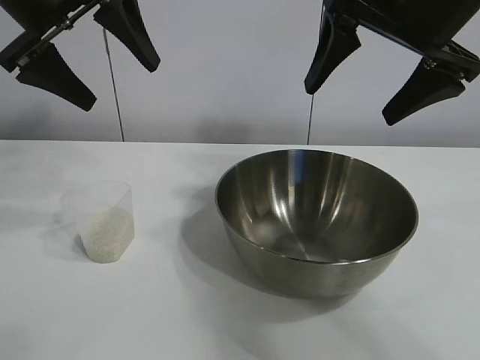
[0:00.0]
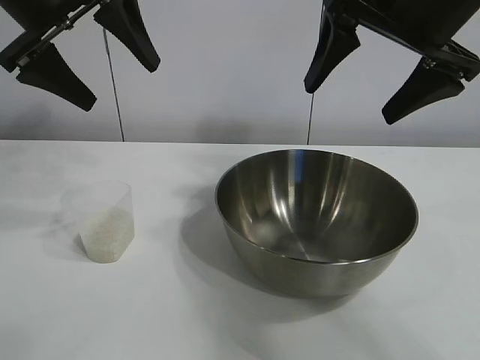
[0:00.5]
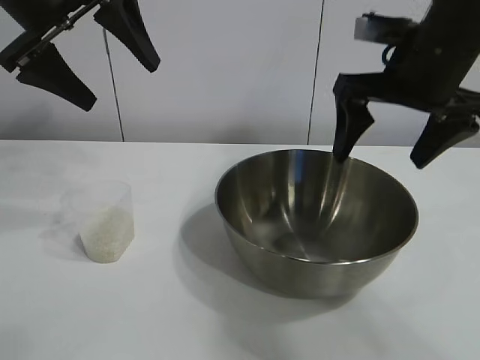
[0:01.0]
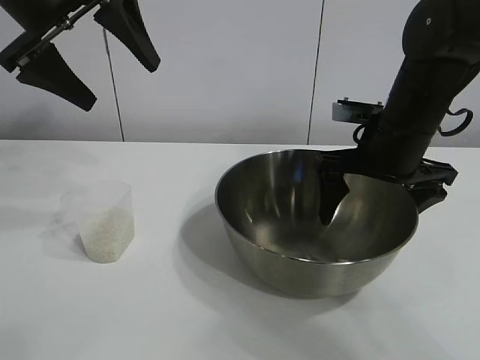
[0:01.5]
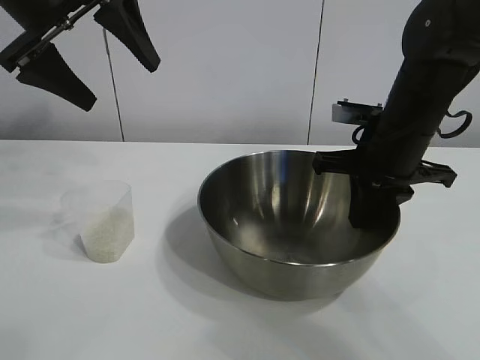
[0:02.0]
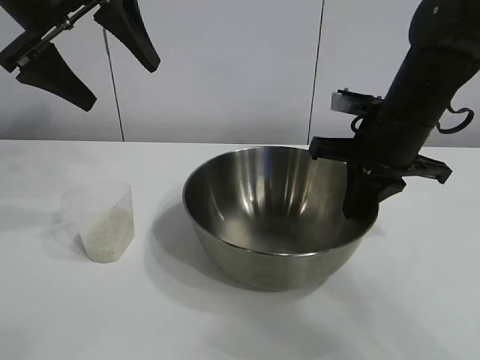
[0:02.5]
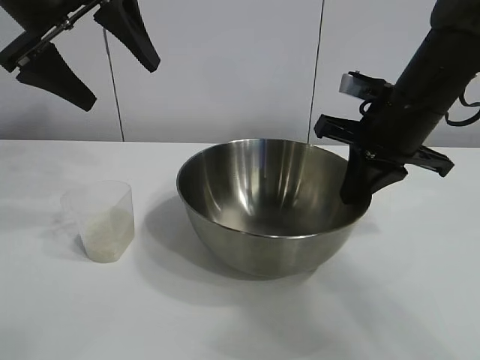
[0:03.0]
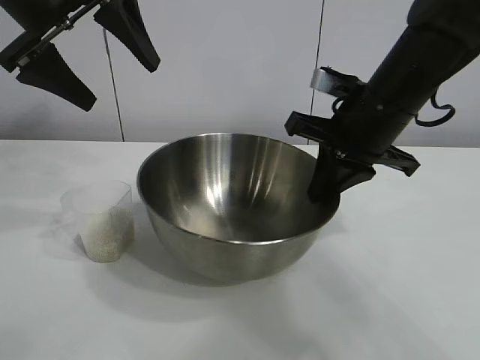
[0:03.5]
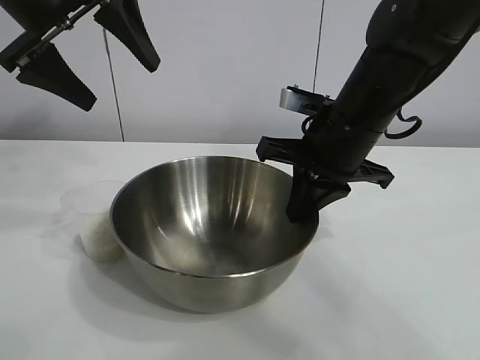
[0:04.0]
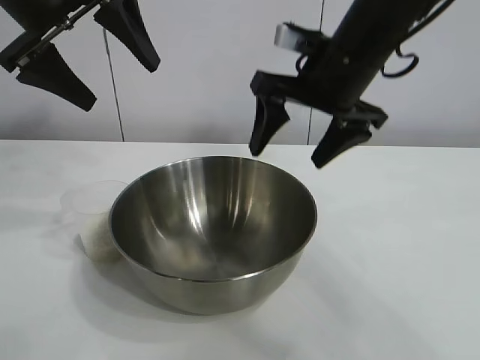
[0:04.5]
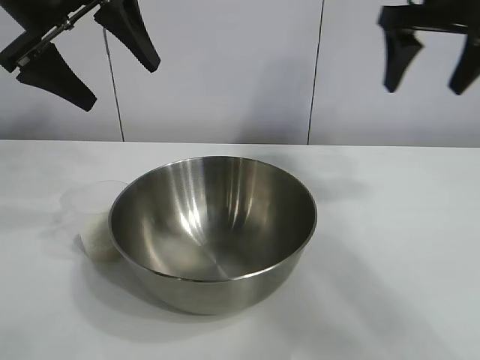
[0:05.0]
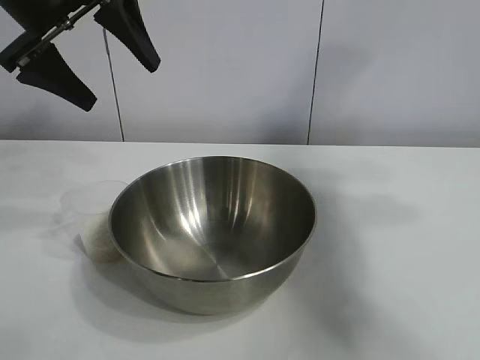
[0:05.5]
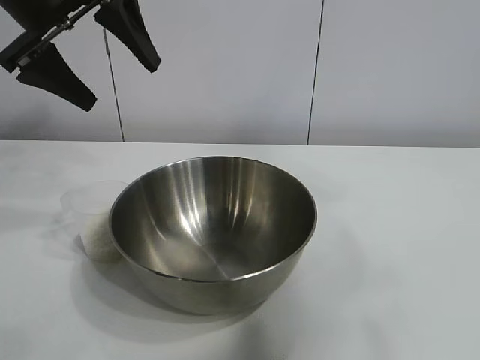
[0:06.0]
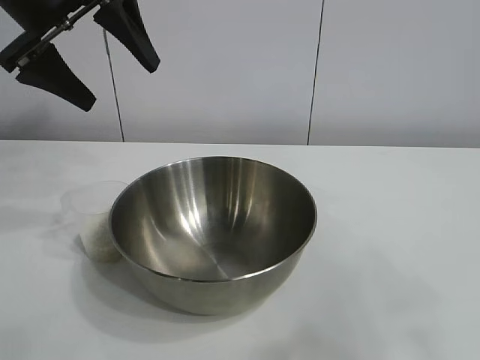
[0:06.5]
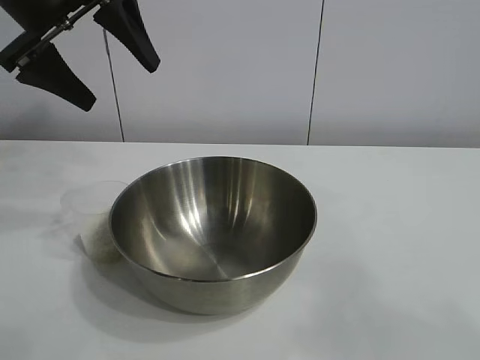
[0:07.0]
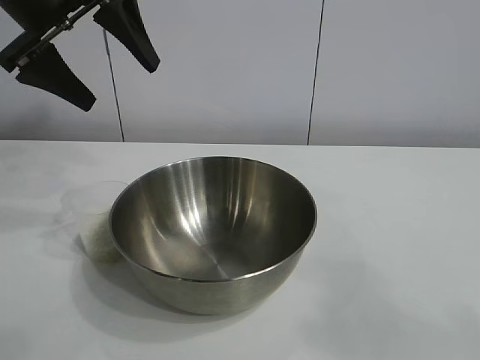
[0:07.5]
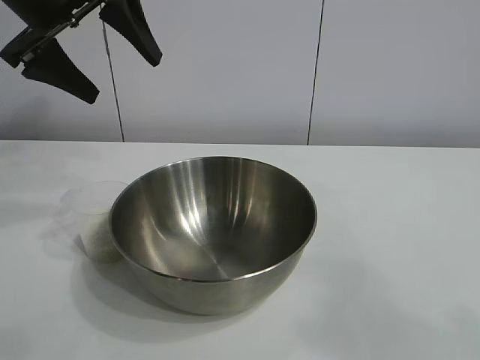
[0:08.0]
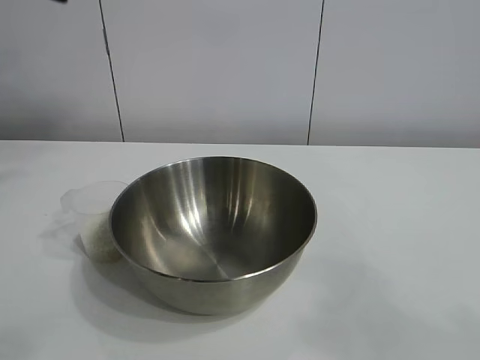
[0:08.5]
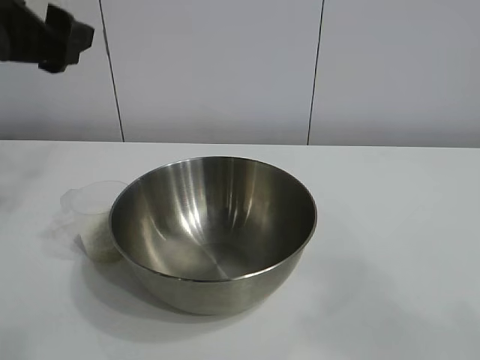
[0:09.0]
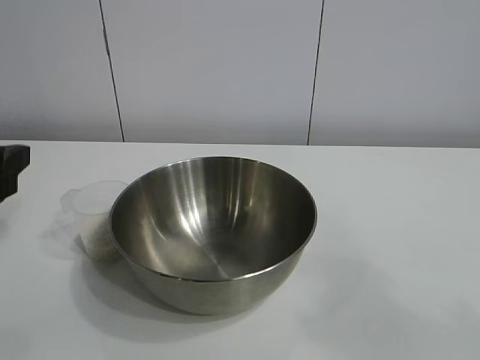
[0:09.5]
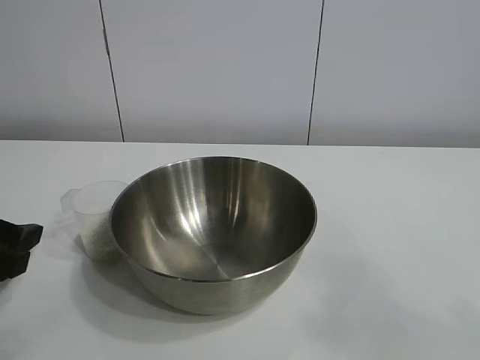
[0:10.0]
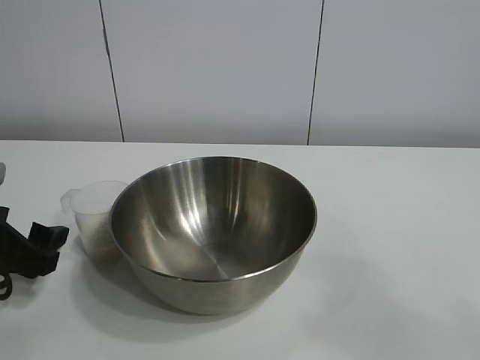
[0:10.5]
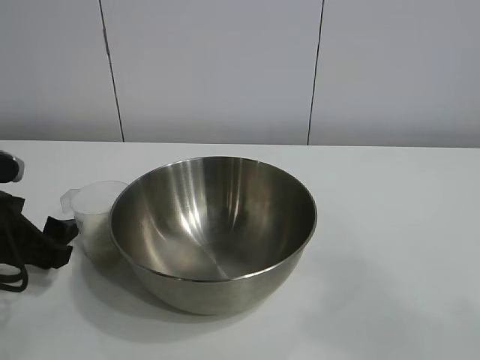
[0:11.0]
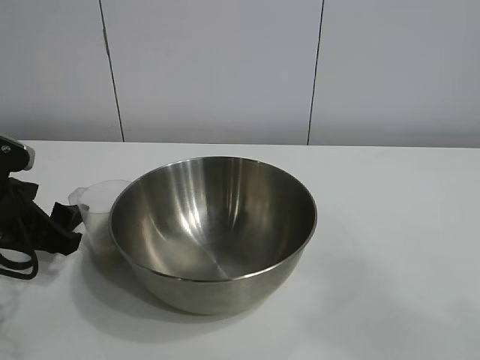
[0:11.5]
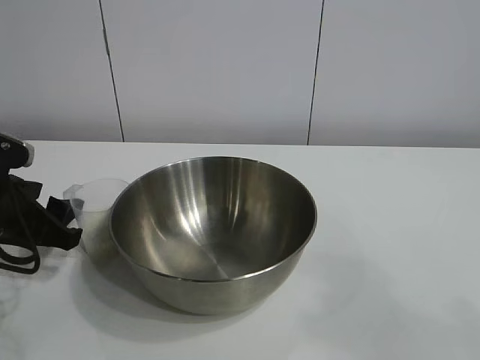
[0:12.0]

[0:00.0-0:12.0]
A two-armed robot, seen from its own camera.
Task of the whole recording: the right gripper grasp the rice container and place it in the center of the table, the left gripper grasp the rice scoop and pour the rice into the rice container.
Step, 0:01.0 to 0:04.0: Move the bowl in the center of view with right gripper.

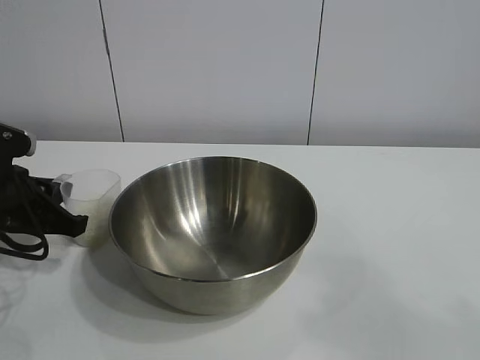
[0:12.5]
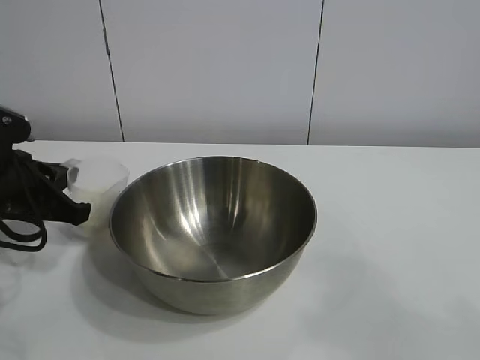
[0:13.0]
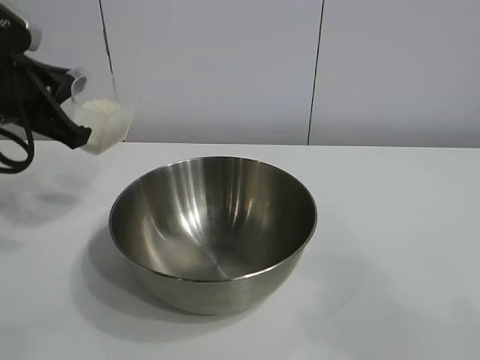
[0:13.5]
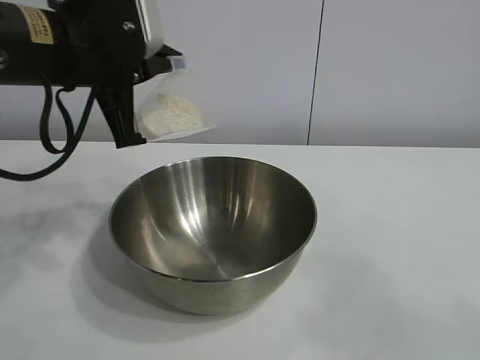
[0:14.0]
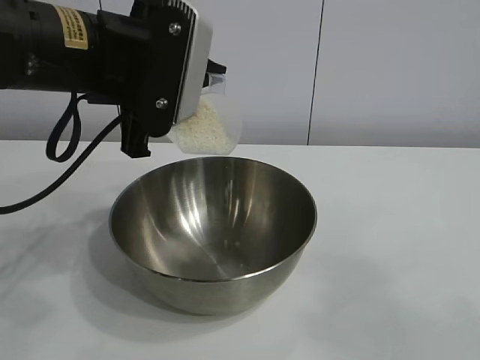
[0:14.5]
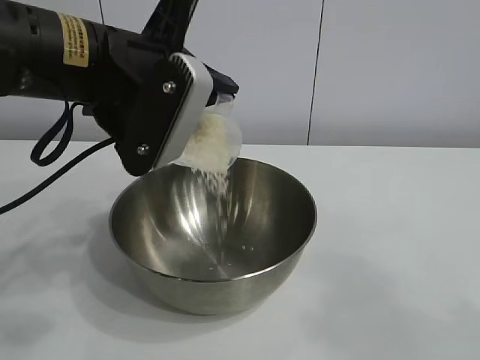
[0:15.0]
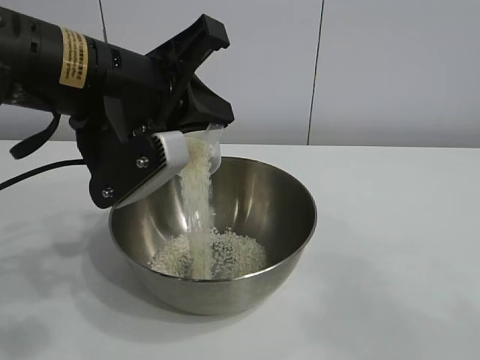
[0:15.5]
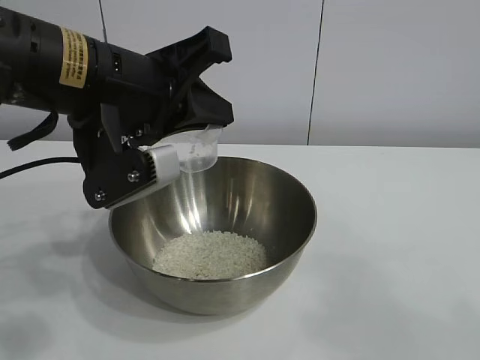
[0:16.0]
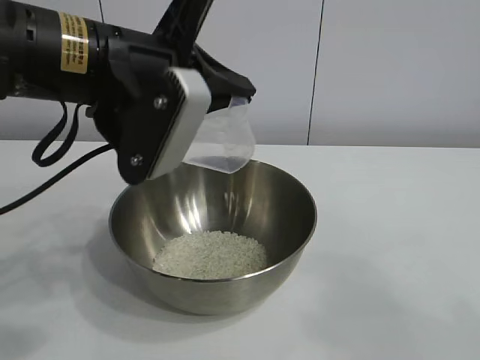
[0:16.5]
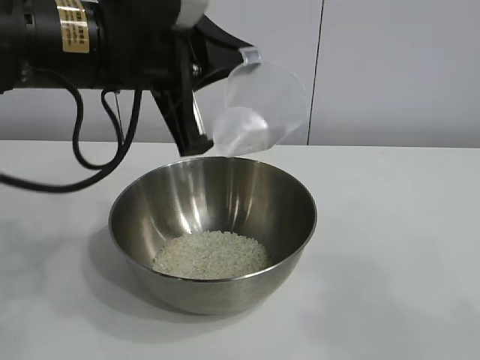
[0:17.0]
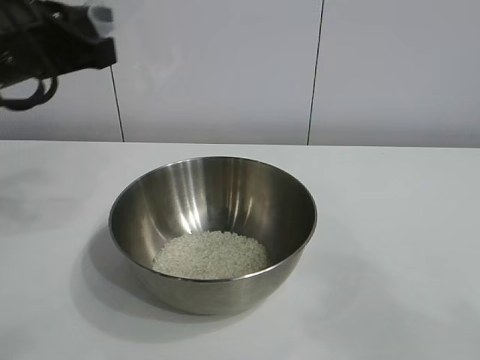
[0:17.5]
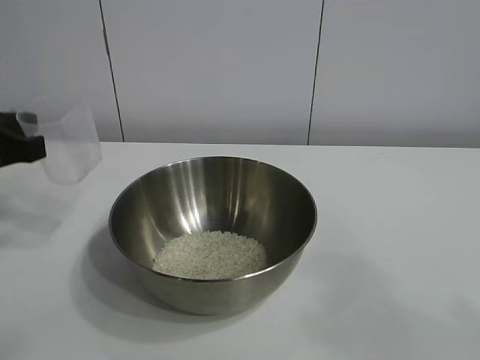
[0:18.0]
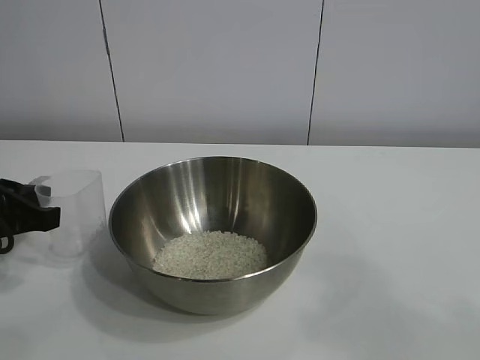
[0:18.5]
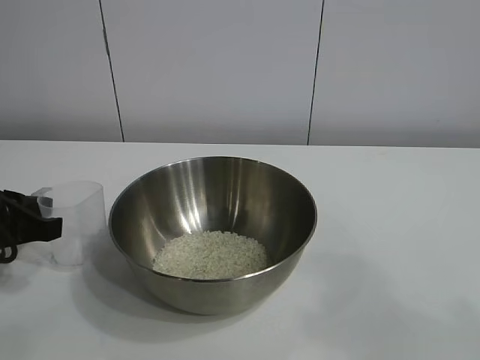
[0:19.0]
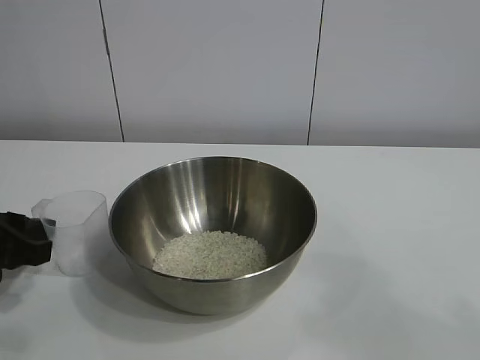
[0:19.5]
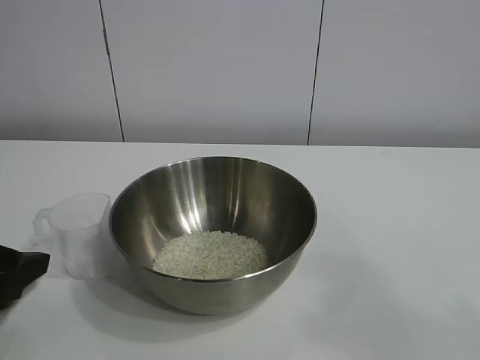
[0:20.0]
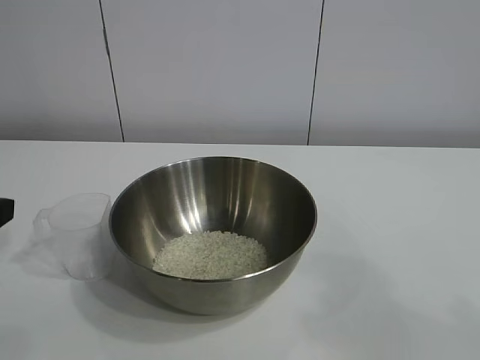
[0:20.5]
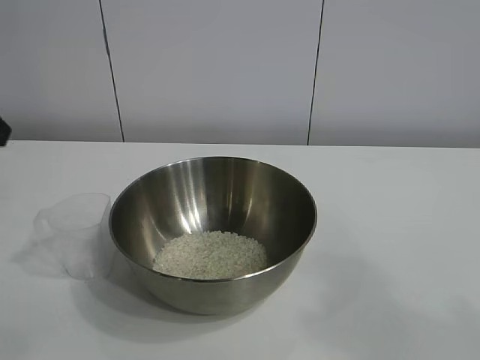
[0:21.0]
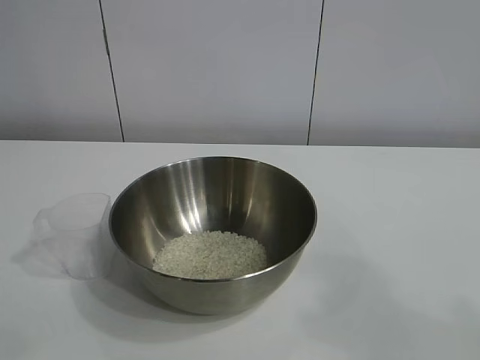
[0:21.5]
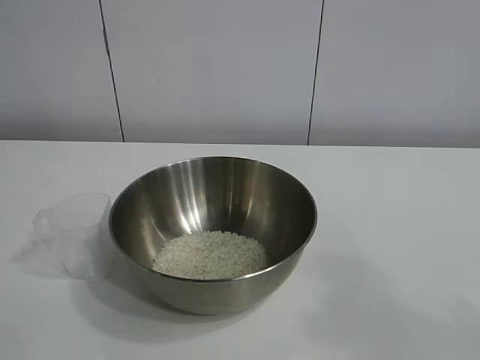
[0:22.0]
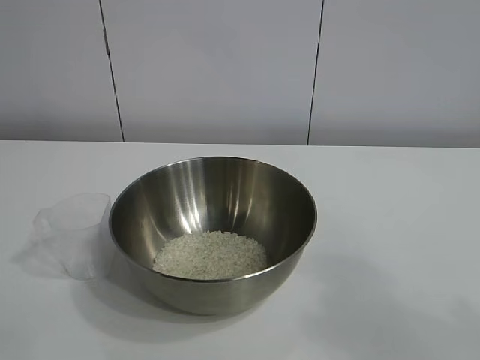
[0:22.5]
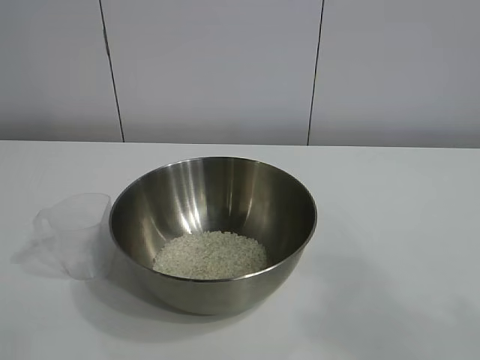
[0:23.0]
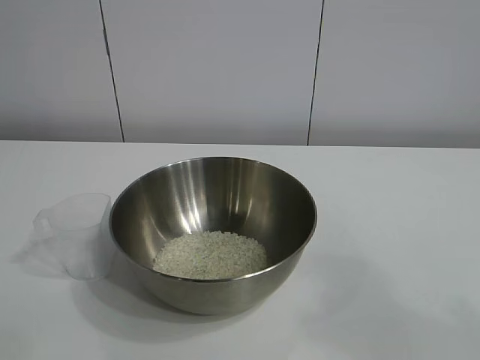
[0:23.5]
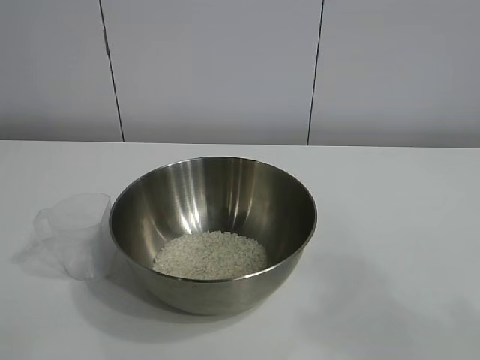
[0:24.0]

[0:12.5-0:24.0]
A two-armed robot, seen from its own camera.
Task of the whole recording: the right gripper grasp the rice container and place it in the center of the table, the left gripper grasp the rice scoop and pour the rice into the rice container.
Step, 0:13.0 to 0:16.0: Pour the rice from the cup into the bowl with the left gripper.
Step, 0:16.5 to 0:19.0: Place the cup on the table with the left gripper.
